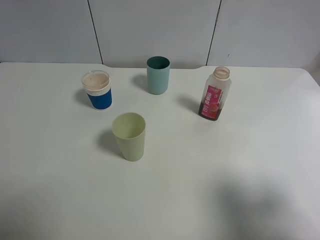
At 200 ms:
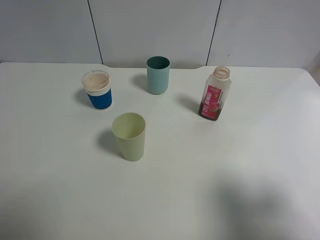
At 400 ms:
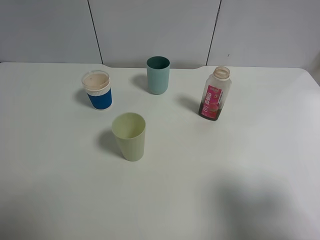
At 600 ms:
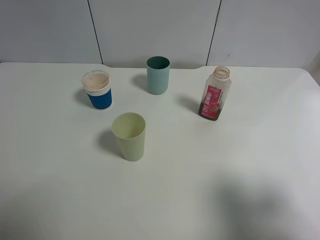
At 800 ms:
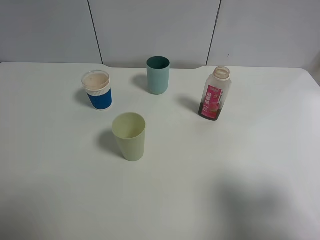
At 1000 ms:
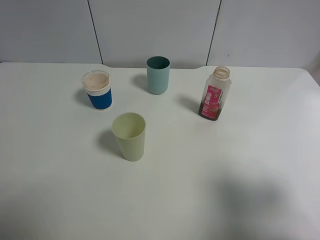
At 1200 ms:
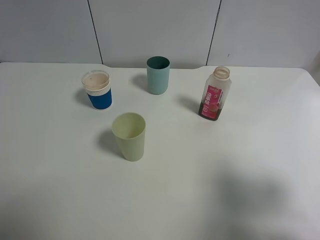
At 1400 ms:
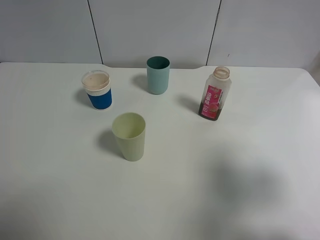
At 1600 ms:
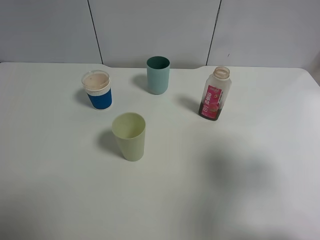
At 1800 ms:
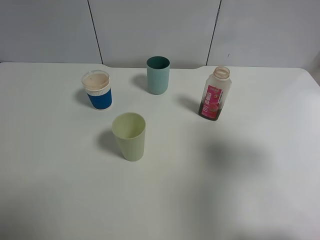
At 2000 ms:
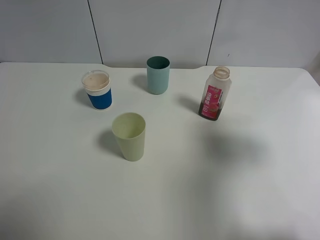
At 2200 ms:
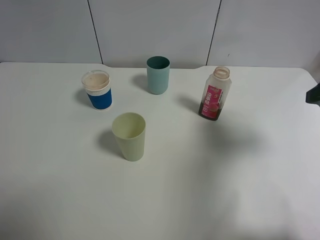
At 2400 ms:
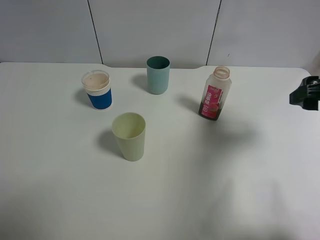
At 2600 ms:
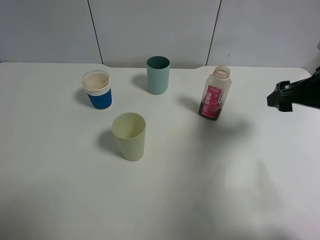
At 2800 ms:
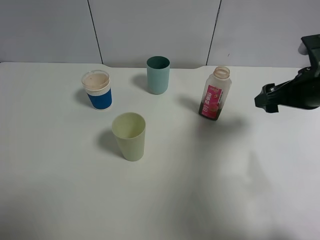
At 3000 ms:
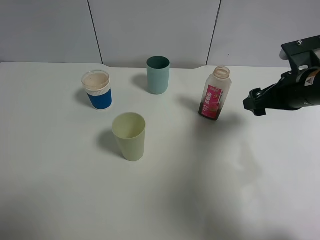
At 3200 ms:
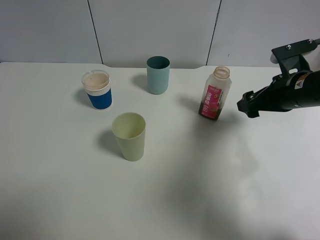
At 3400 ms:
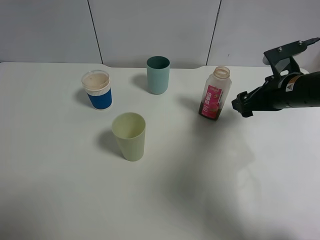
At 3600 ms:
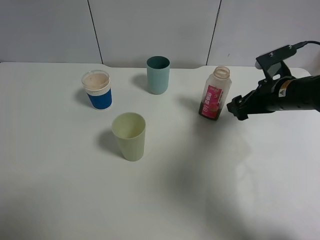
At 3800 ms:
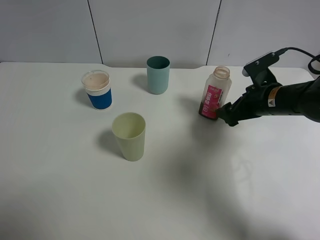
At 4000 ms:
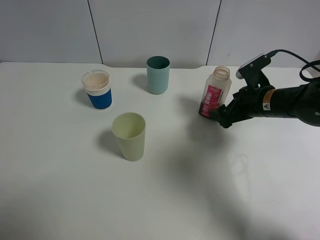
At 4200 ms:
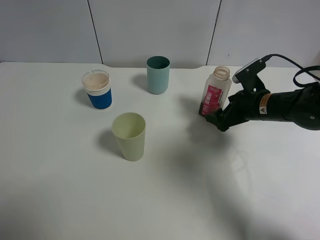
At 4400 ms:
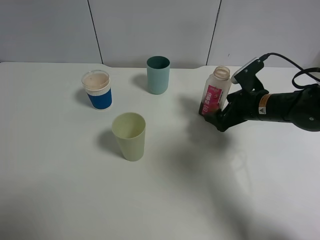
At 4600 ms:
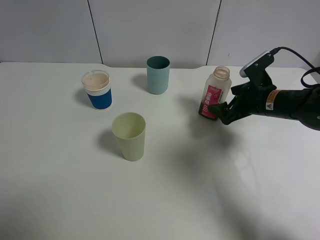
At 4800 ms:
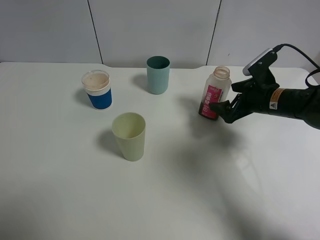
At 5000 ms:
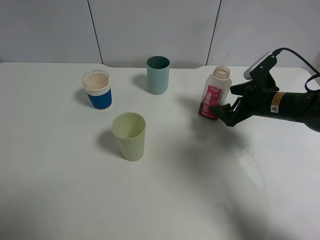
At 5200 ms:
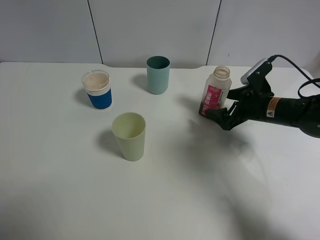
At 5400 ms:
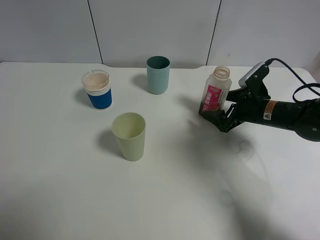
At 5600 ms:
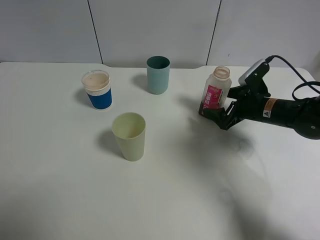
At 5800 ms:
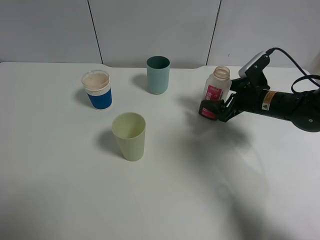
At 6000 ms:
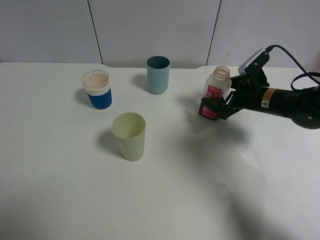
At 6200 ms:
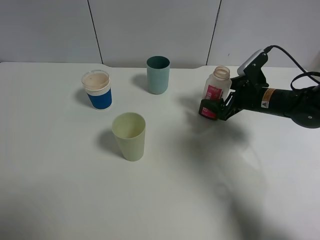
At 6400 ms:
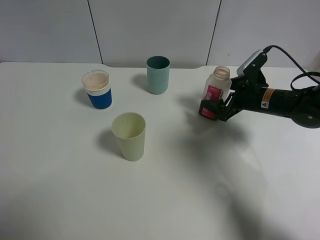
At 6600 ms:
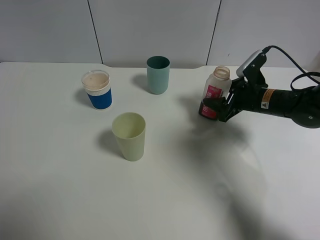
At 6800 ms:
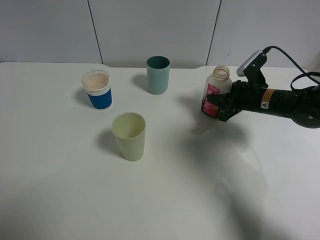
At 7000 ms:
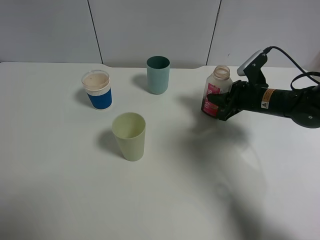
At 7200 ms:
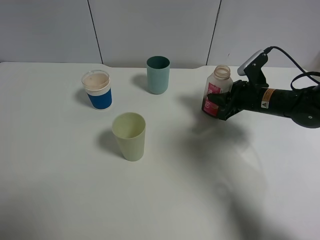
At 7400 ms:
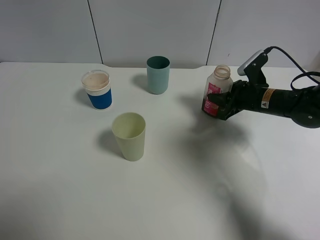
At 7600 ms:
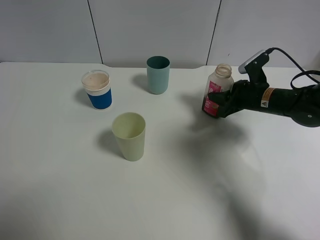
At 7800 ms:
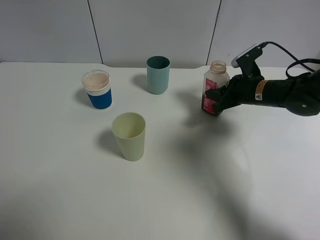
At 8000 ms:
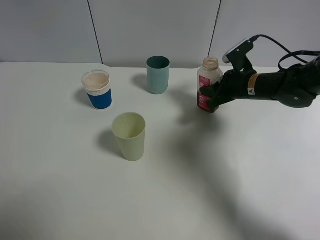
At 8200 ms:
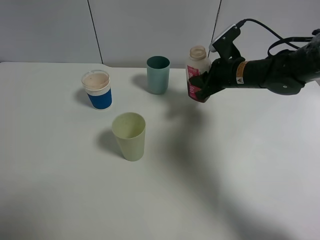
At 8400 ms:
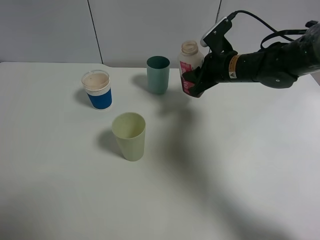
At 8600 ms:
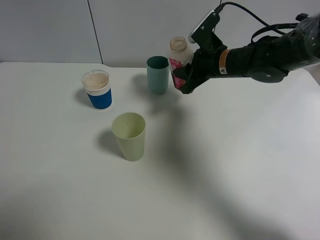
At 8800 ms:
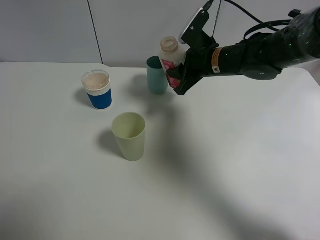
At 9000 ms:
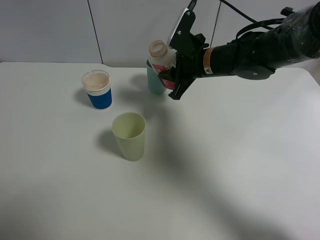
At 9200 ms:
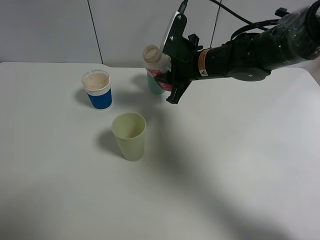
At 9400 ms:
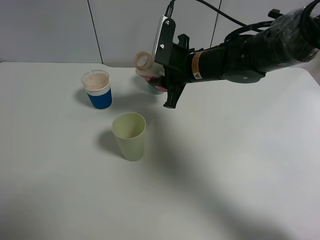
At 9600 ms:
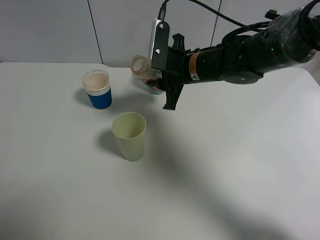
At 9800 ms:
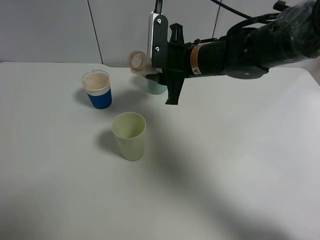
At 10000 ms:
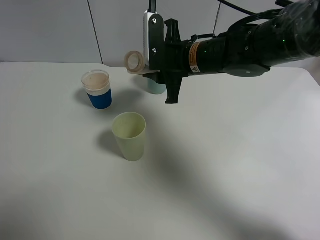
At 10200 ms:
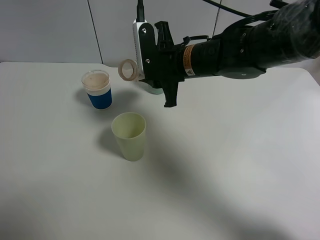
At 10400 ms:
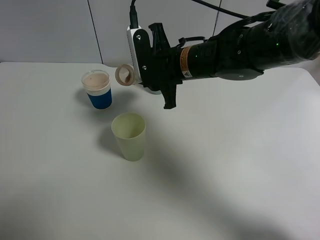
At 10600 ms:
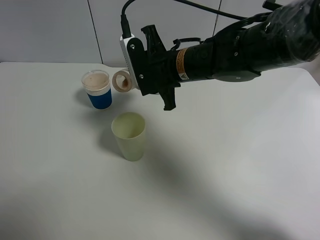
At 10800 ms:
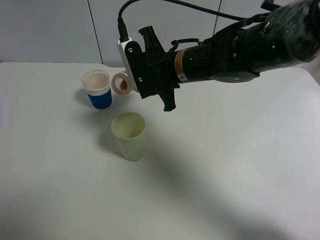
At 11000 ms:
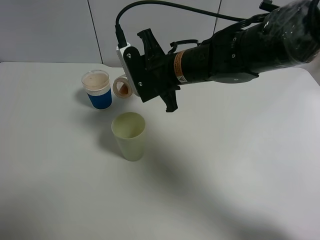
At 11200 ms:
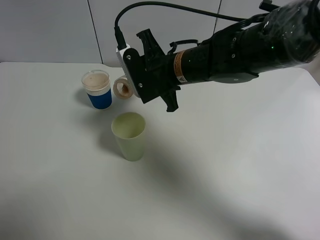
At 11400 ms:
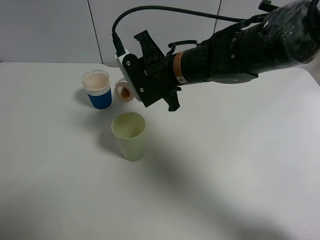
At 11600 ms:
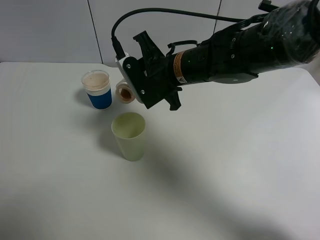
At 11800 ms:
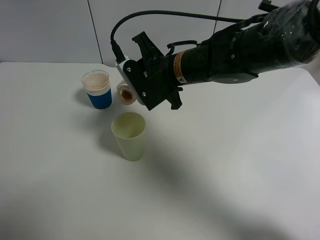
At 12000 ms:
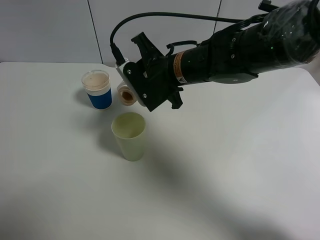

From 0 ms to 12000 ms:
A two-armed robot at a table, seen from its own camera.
Task of the whole recording: use a gripper to hold the bottle of the drink and pour it into a random cup.
Step, from 0 ms to 7200 ms: Grasp the cranberry juice bottle with the right gripper.
From 0 ms to 1600 ms: The right gripper travels forward by some 10 cm.
From 1600 ms to 3000 ms: The right gripper travels forward and downward by about 20 cm.
From 3000 ms to 4400 ms: The right gripper is displaced downward by approximately 10 cm.
From 4400 ms to 6000 ms: The grippers stay close to where they were, moving slightly.
From 6000 ms to 7600 ms: The right gripper closes.
From 7600 ms to 9000 ms: The right gripper goes about 15 cm to the left and upward.
From 9000 ms to 10400 ms: The right gripper goes roughly 5 cm to the left.

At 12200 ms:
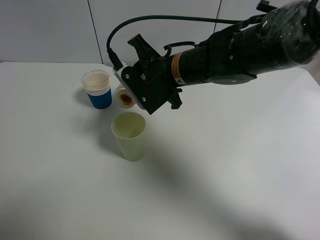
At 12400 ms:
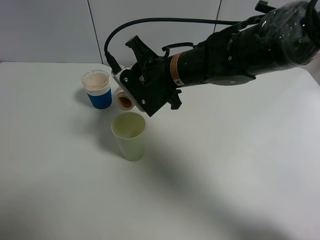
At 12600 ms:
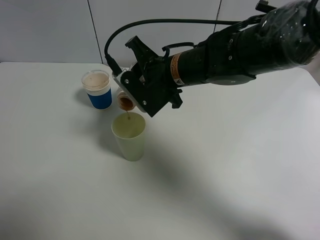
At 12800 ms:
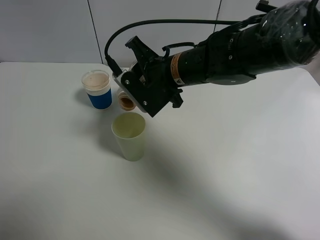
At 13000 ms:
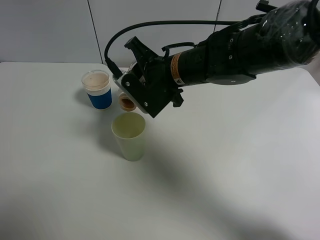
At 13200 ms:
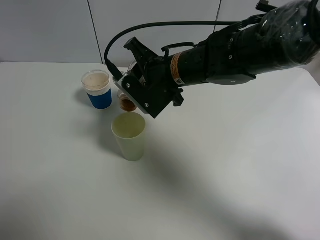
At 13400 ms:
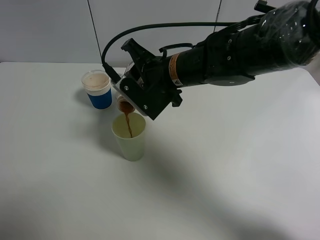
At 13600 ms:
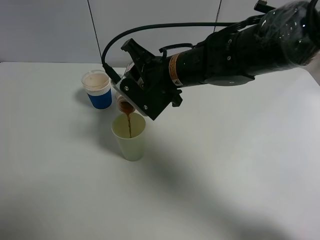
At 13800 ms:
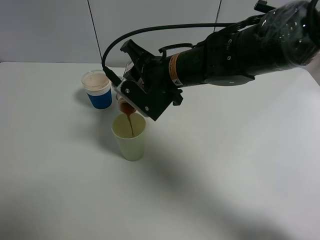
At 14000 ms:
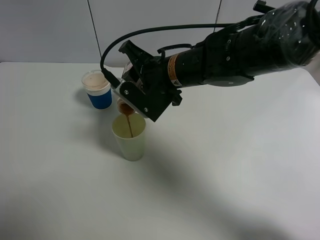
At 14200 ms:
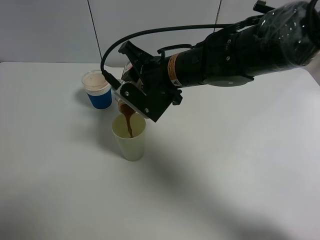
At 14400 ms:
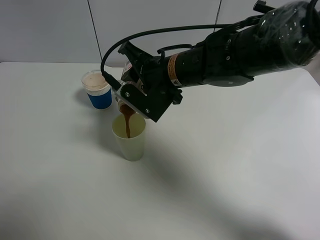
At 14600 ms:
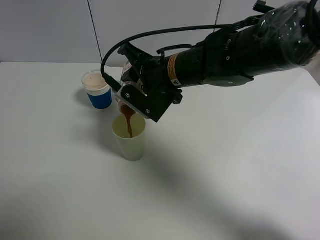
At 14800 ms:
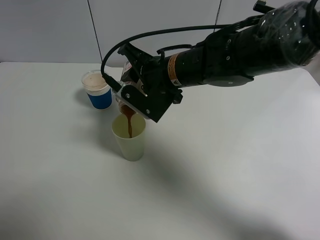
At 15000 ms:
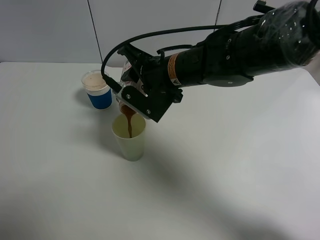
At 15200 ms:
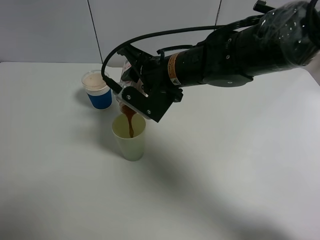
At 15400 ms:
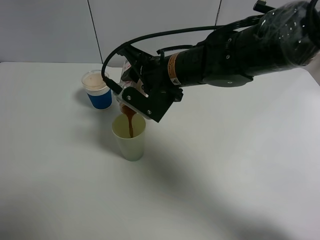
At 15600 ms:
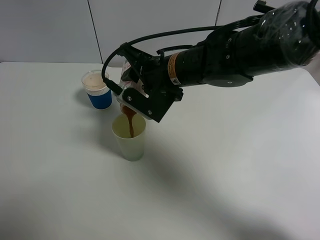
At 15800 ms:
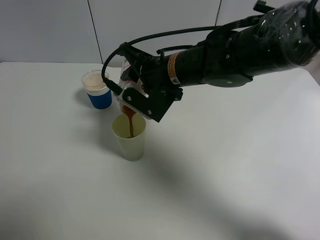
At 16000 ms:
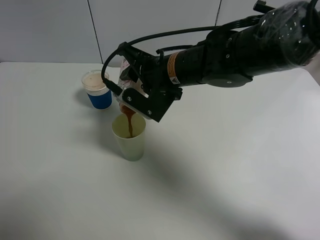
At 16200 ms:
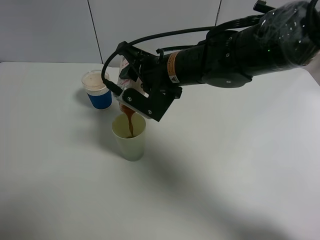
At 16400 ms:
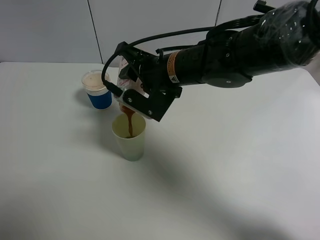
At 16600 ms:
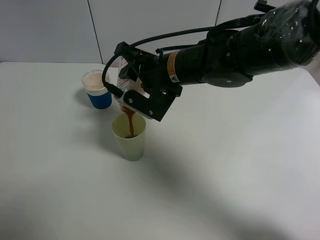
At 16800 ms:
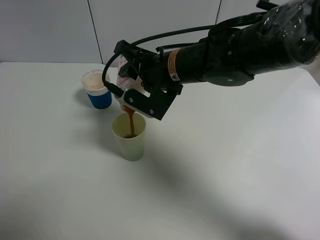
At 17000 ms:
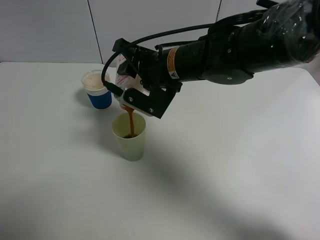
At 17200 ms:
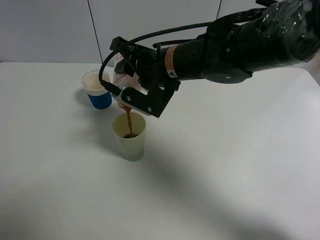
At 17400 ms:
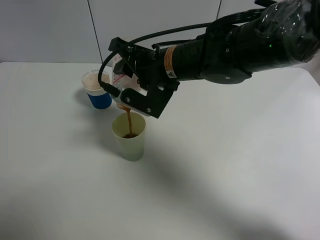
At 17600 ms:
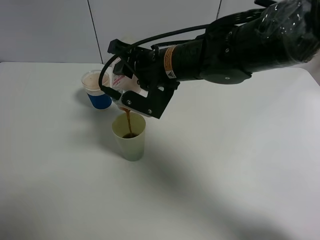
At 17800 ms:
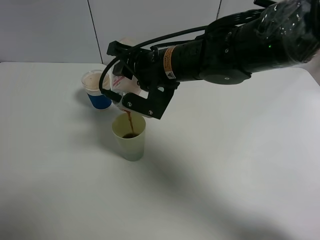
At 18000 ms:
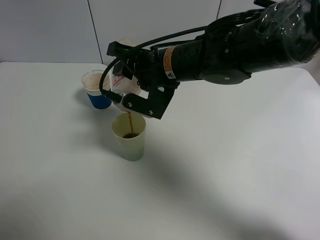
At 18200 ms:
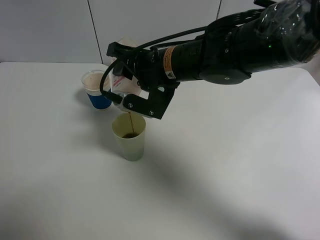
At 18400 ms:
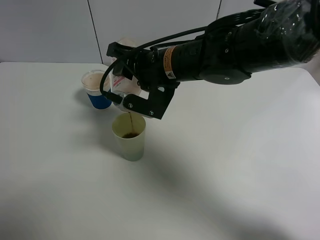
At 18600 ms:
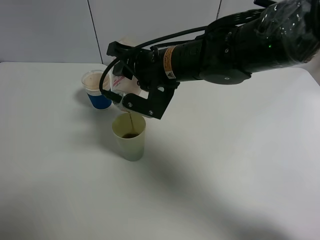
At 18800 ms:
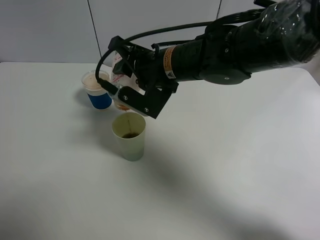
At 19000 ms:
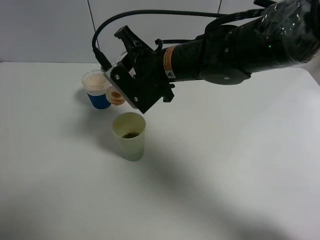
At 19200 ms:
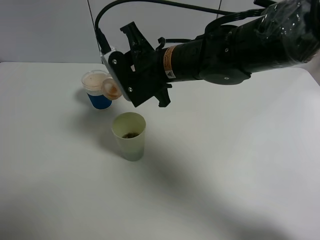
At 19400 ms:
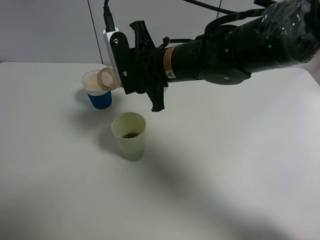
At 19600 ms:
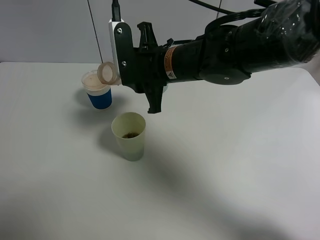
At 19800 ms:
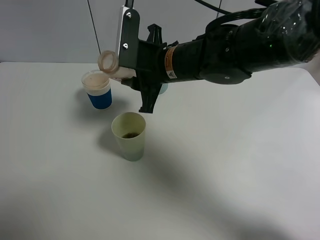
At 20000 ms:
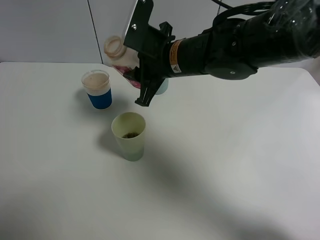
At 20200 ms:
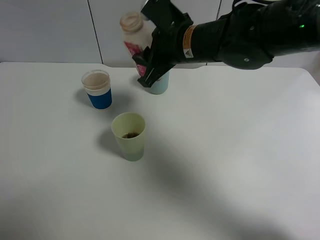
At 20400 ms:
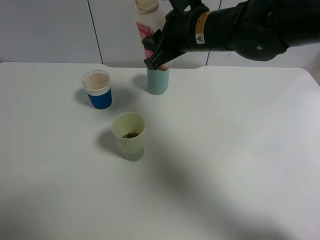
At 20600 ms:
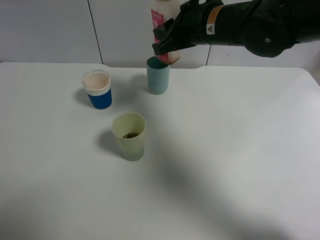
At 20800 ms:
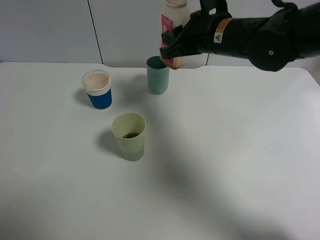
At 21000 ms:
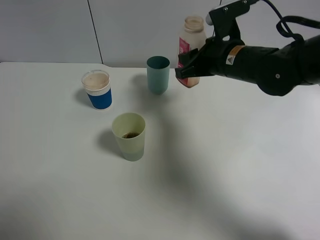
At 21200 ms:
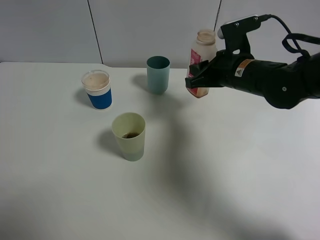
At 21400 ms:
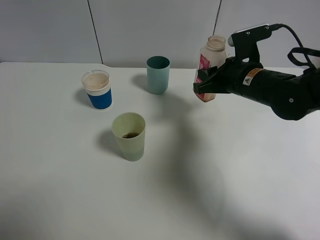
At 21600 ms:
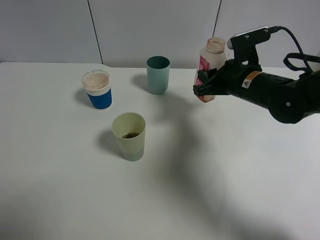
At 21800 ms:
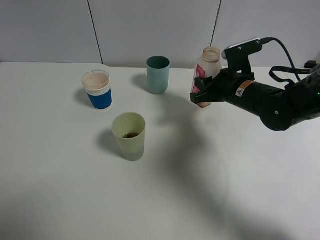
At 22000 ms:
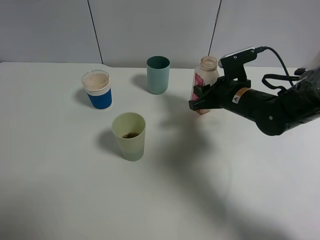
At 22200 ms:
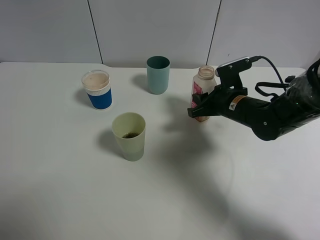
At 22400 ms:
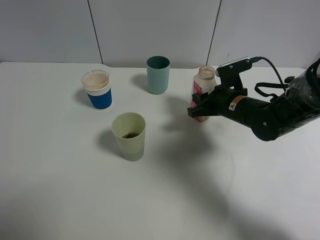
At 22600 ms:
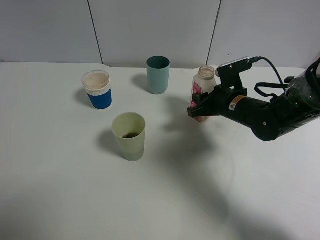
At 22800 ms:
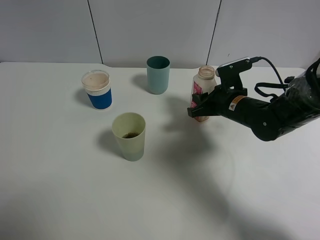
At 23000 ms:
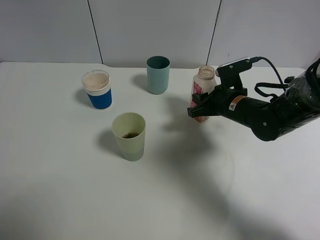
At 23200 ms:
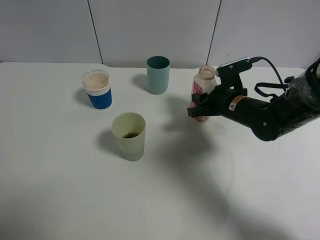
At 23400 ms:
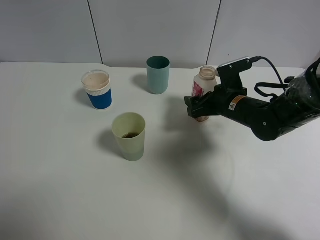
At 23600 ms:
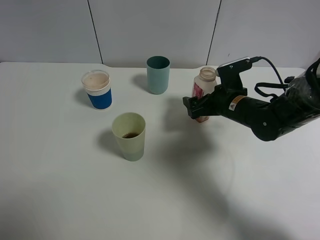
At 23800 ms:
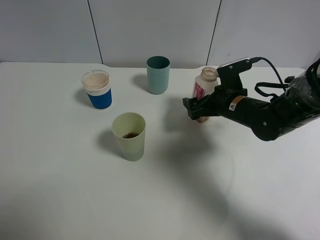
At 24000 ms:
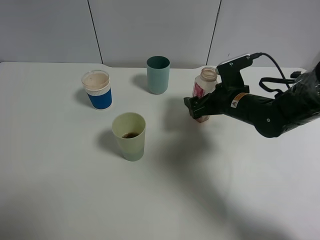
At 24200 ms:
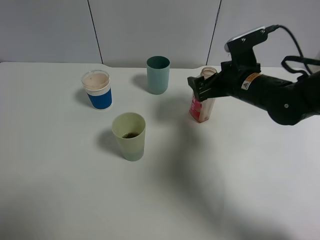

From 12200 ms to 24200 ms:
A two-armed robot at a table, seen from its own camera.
Task of the whole recording: use a gripper to hold the bottle of the drink and pour it into a random cup.
Step, from 12200 ms to 19600 ms: Pour the cranberry juice into the White Plastic Cup with the right gripper.
Step, from 19800 ms to 24000 ms: Place the cranberry juice bottle on the table with the right gripper.
From 12200 ms to 15200 ms: The grippers make only small movements.
From 15200 ms to 18200 ms: The grippers move only a little.
From 19800 ms to 21200 ms: The right gripper moves to the right, roughly 15 cm.
From 21200 ms to 22600 ms: The right gripper moves downward, about 10 cm.
From 22600 ms to 24200 ms: The right gripper moves upward, some 5 cm, and opens.
